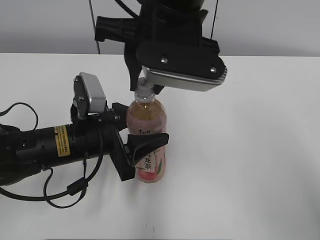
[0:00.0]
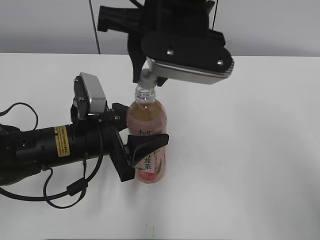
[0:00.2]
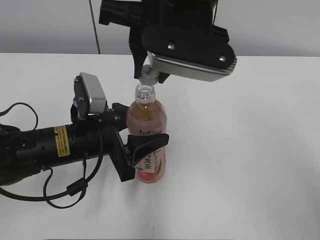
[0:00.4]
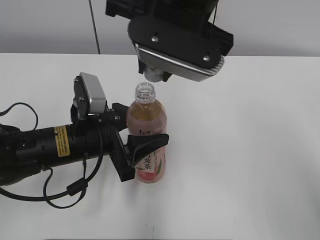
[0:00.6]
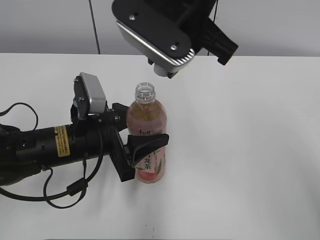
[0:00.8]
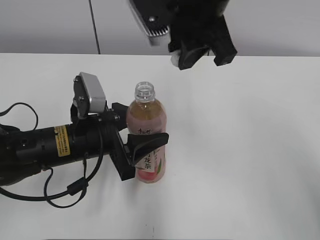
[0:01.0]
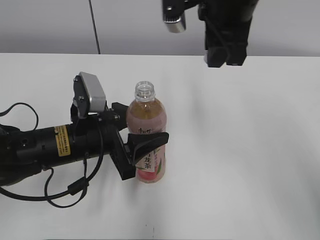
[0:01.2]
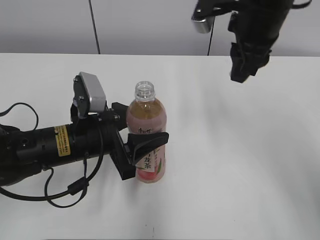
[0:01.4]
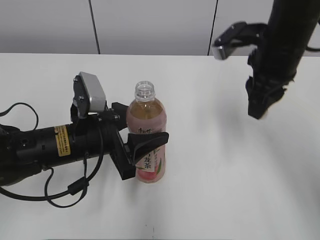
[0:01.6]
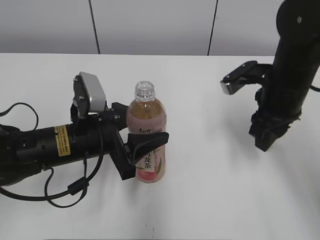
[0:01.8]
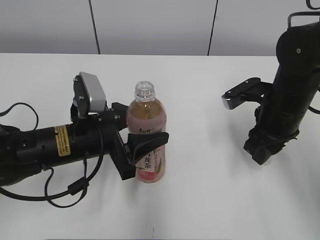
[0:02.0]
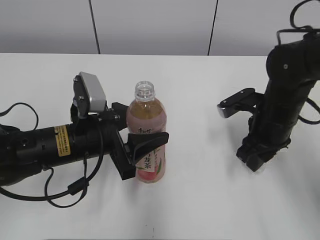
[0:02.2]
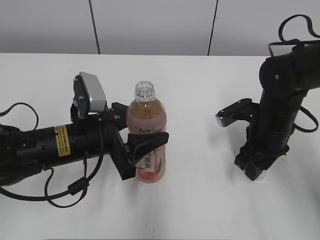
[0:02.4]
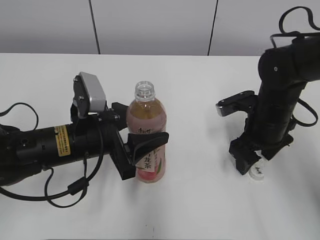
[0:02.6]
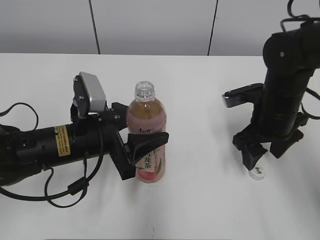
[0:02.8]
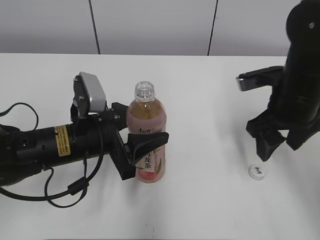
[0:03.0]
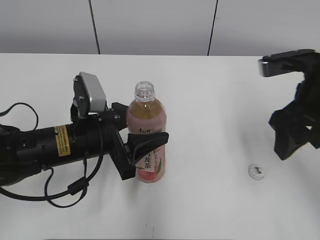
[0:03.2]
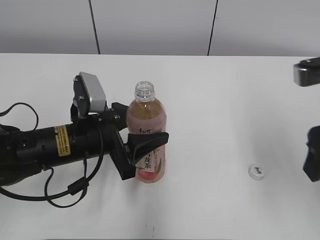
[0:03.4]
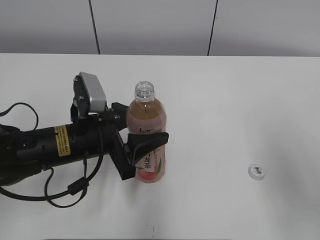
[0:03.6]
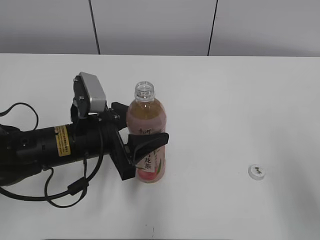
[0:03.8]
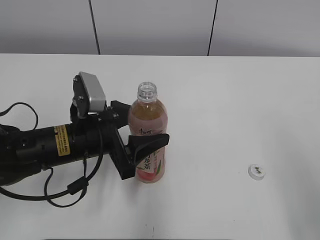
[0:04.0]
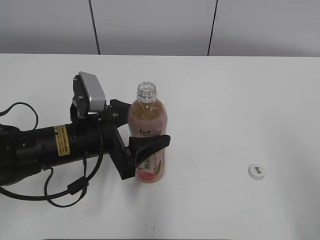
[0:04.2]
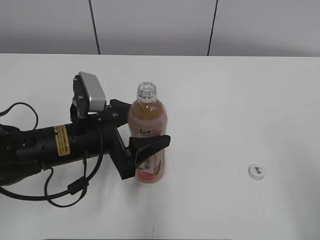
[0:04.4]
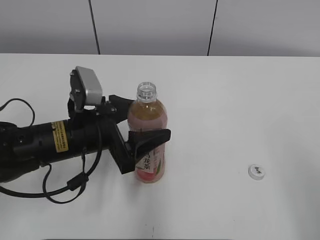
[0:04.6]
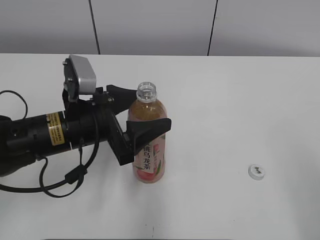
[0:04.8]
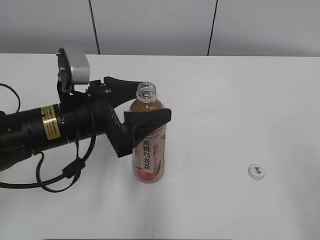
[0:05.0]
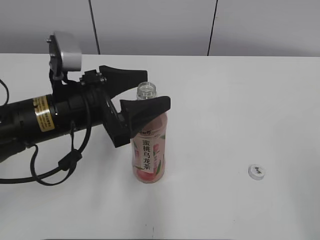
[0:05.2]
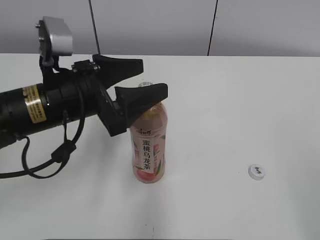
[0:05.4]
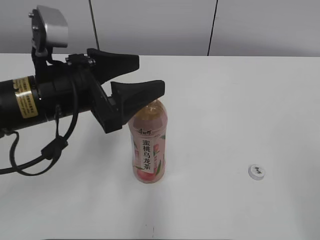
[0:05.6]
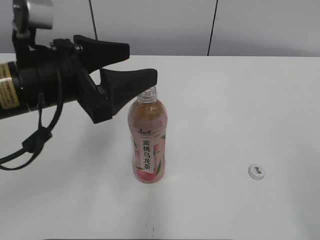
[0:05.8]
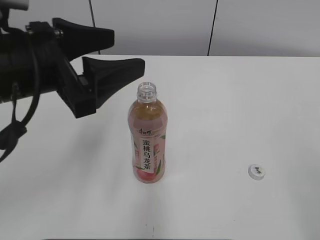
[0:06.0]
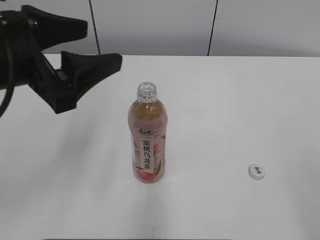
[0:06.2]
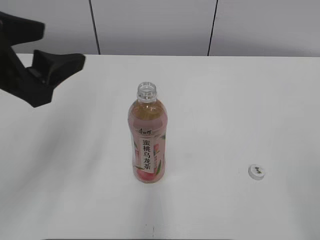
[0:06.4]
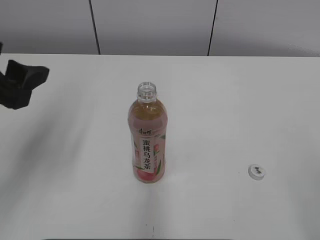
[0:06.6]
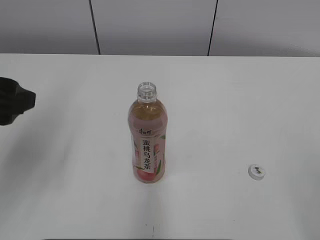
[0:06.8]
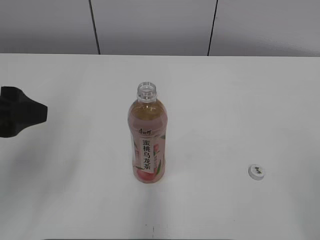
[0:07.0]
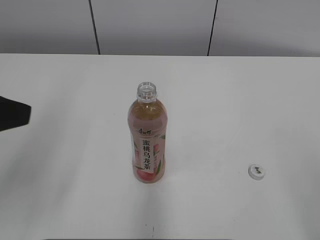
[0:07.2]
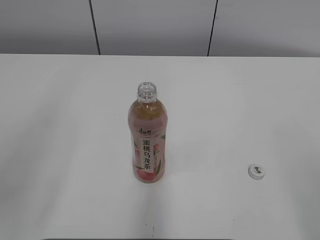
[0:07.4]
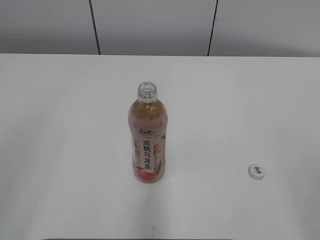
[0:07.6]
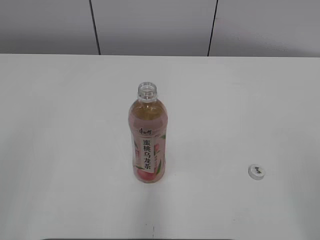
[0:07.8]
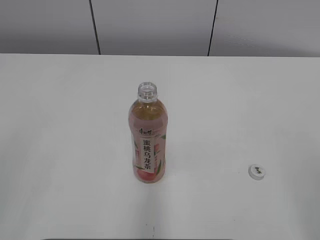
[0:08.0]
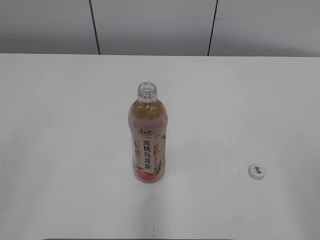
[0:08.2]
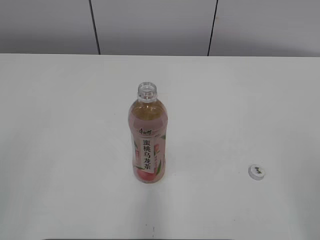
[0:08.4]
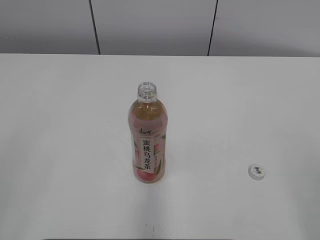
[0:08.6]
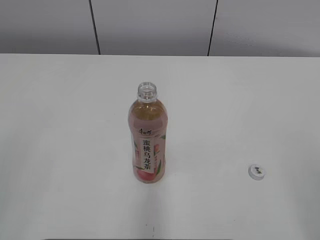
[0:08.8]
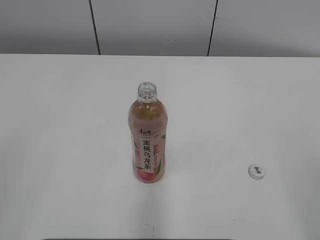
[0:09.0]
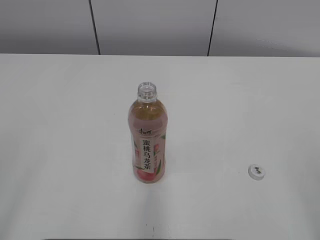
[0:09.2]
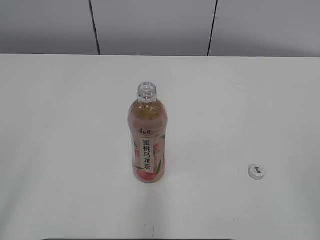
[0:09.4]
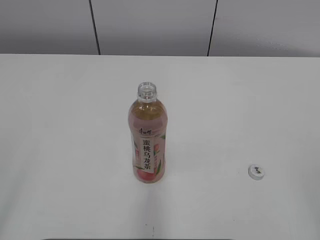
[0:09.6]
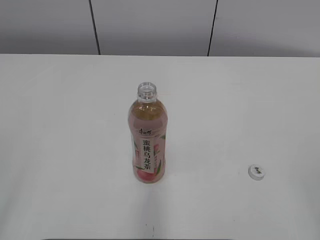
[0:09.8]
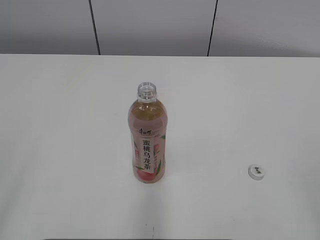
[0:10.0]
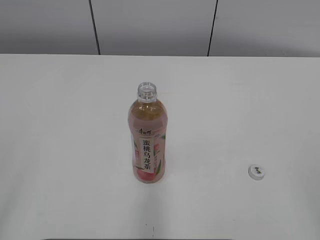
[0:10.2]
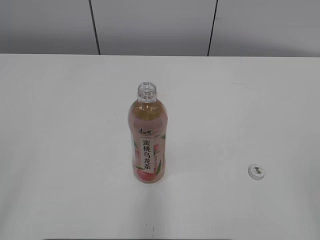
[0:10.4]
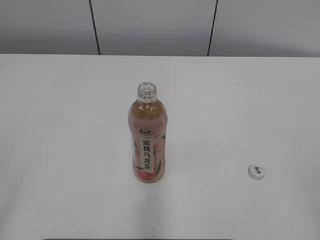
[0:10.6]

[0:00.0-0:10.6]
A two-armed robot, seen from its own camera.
Step, 0:00.6 to 0:02.4: Place the bottle cap on the right.
0:00.0 to 0:01.6: The right gripper shifts about 15 cm to the right and downward.
0:01.6 to 0:03.0: The right gripper shifts approximately 5 cm downward, and opens.
0:03.0 to 0:04.6: The right gripper travels backward by roughly 25 cm.
0:04.6 to 0:06.0: The left gripper moves upward, roughly 15 cm.
0:06.0 to 0:07.6: The left gripper moves backward and to the left, roughly 20 cm.
